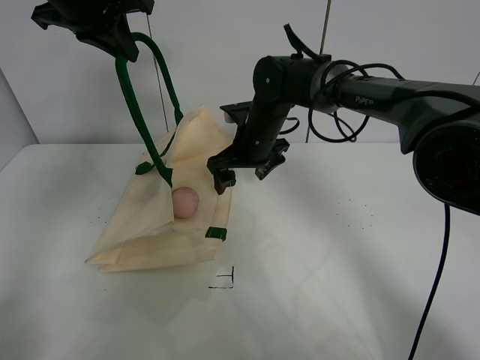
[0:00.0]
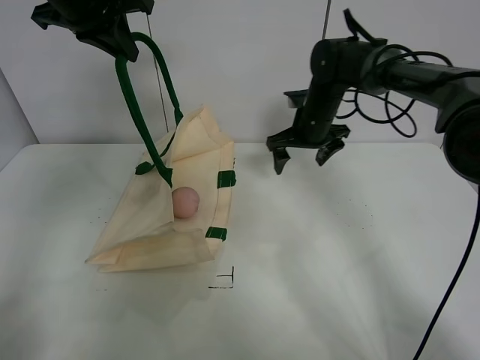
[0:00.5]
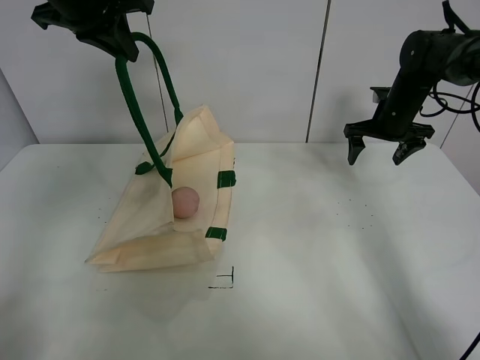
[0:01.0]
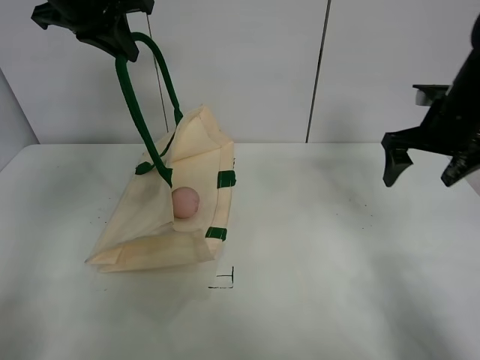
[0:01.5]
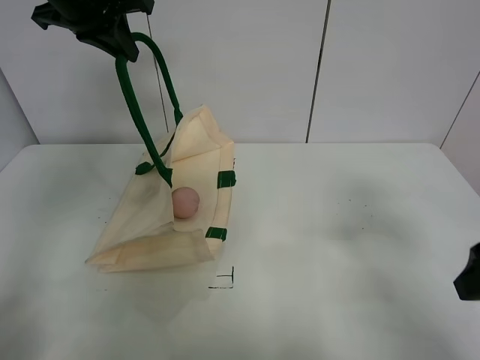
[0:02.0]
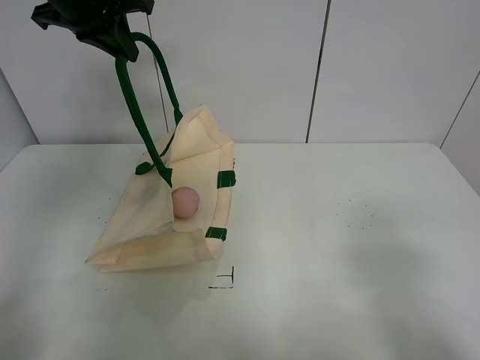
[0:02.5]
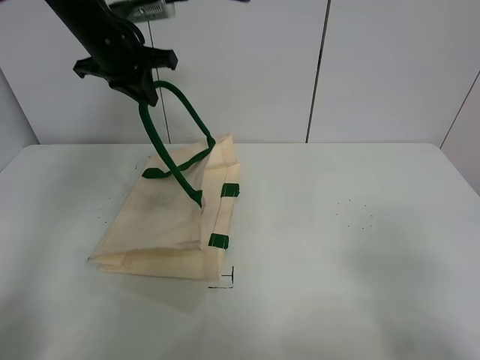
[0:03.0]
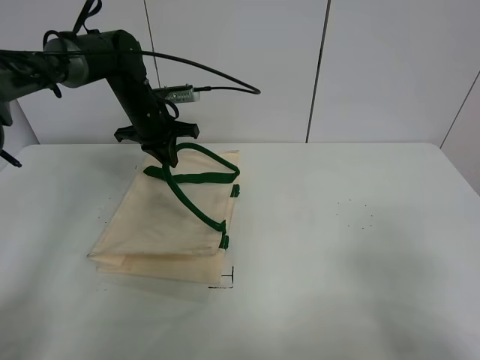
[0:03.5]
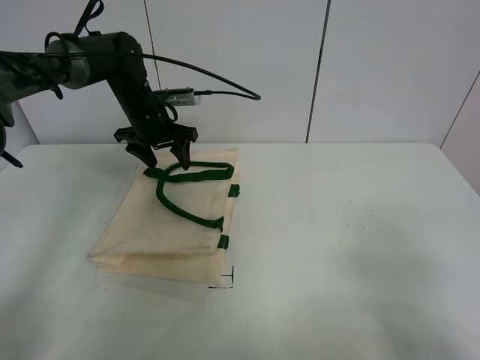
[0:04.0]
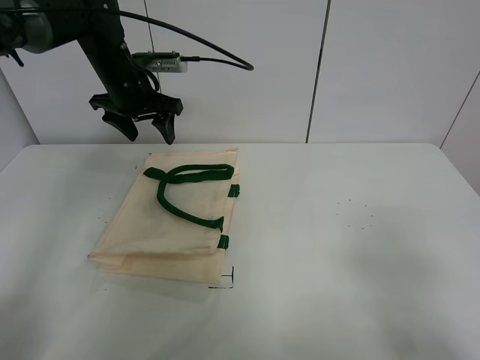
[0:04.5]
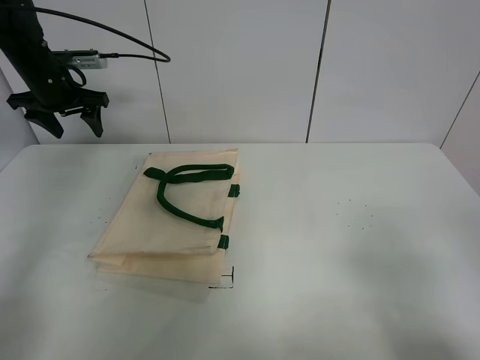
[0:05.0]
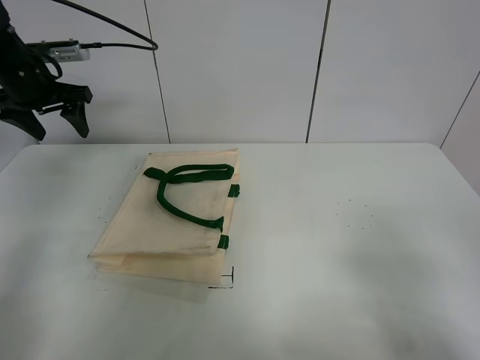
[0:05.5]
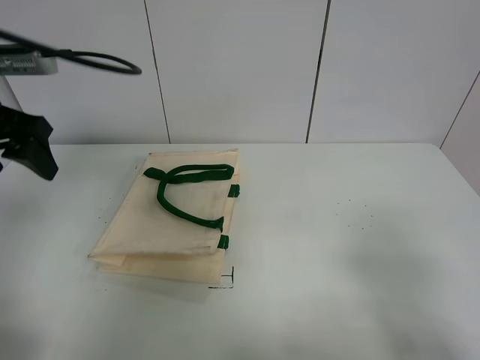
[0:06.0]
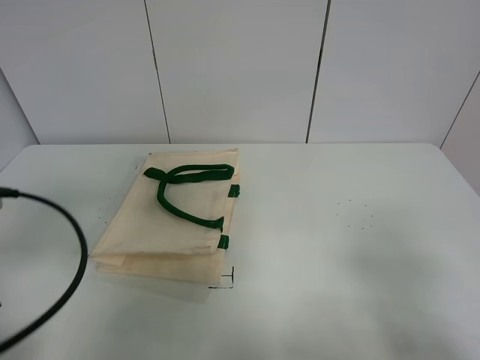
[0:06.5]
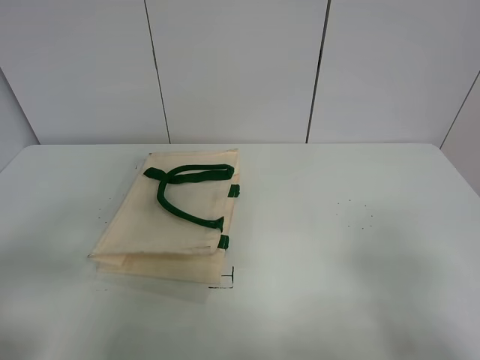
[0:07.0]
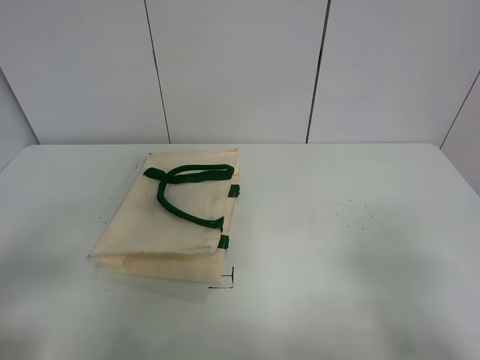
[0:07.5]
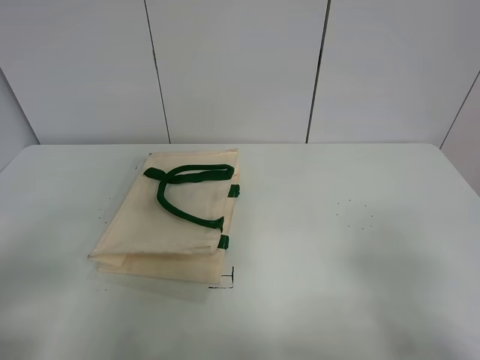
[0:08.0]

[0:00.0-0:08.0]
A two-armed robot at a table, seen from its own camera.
Task of the whole recording: open the white linen bag and put the peach in the bag.
Step, 0:00.0 to 0:04.0: Put down the handbag with left gripper.
0:00.0 to 0:02.0: The right gripper is displaced to the right and backward by about 35 cm.
0:02.0 to 0:04.0: The left gripper is displaced downward and forward by approximately 25 cm, and opens up. The right gripper heads backward, covering roughly 20 cm.
0:04.0 to 0:06.0: The left gripper heads backward, to the left and upward, covering roughly 25 cm.
0:06.0 to 0:08.0: The left gripper is displaced backward by approximately 30 cm.
